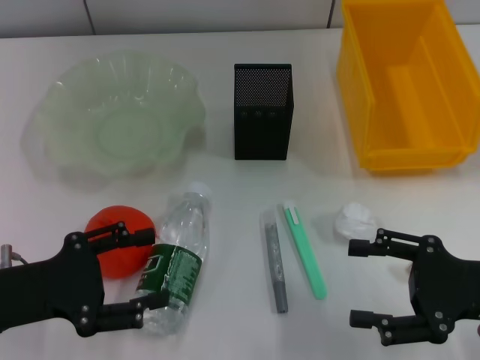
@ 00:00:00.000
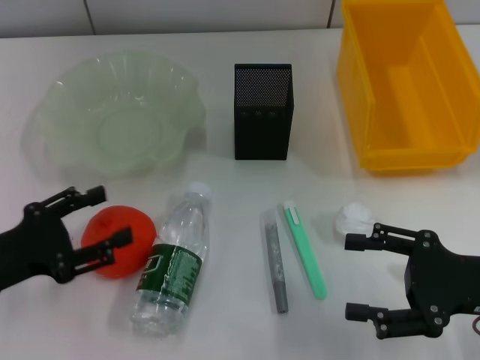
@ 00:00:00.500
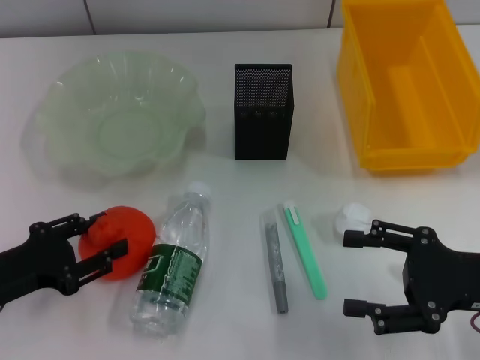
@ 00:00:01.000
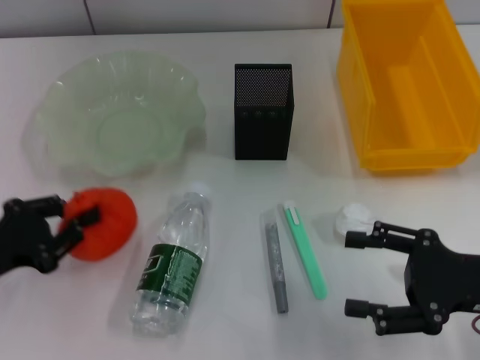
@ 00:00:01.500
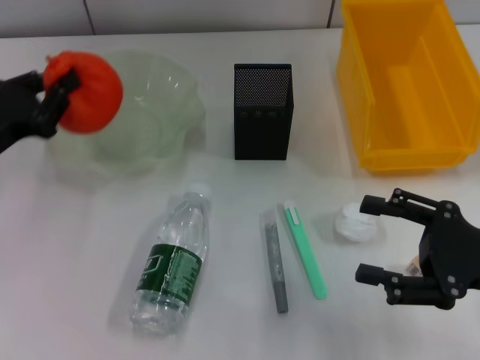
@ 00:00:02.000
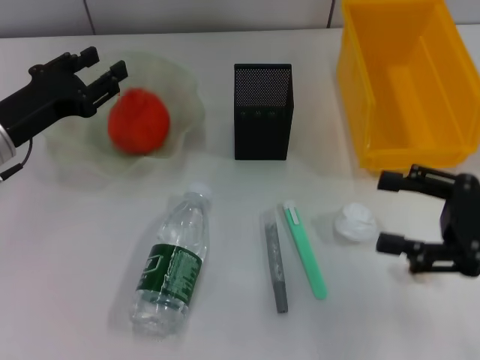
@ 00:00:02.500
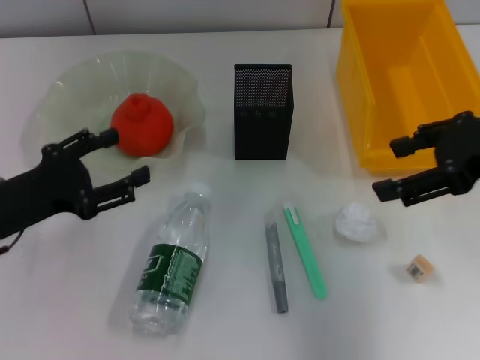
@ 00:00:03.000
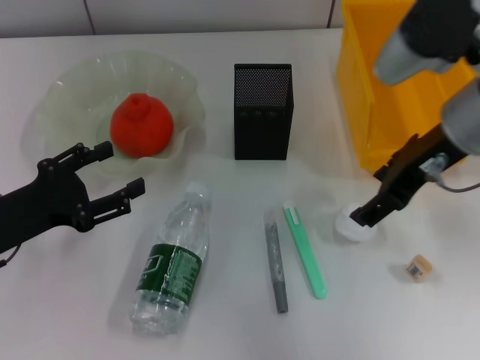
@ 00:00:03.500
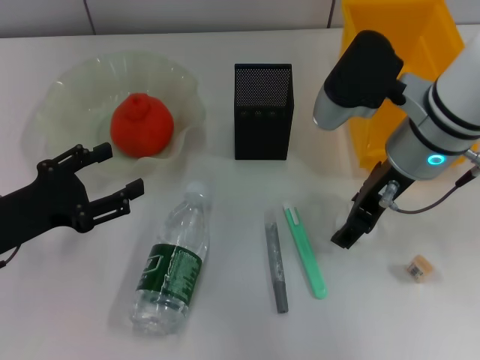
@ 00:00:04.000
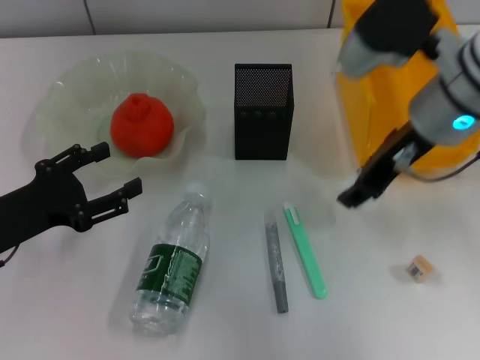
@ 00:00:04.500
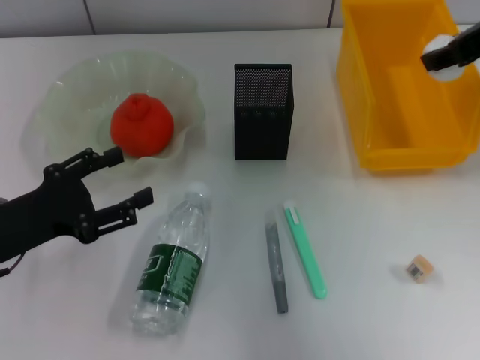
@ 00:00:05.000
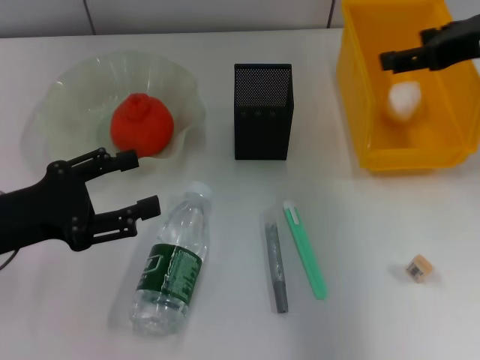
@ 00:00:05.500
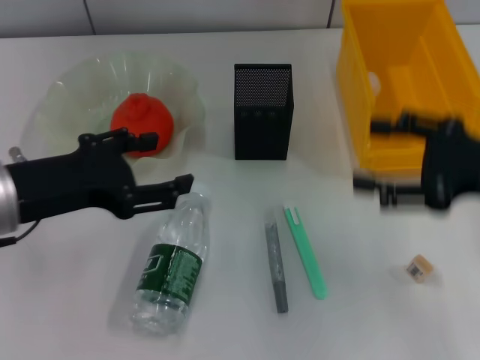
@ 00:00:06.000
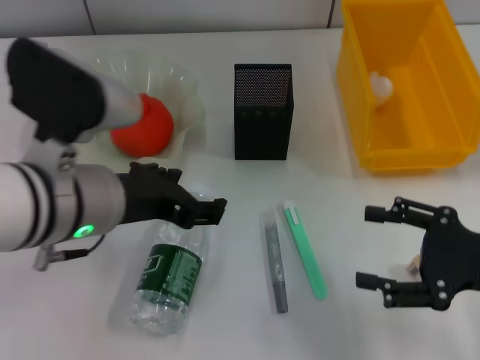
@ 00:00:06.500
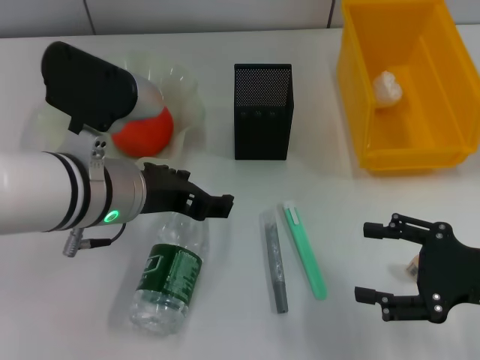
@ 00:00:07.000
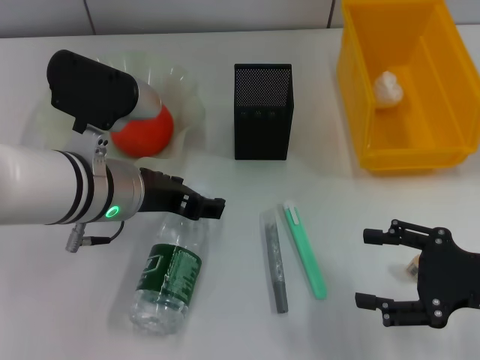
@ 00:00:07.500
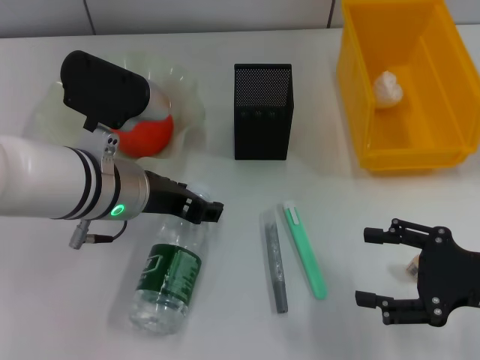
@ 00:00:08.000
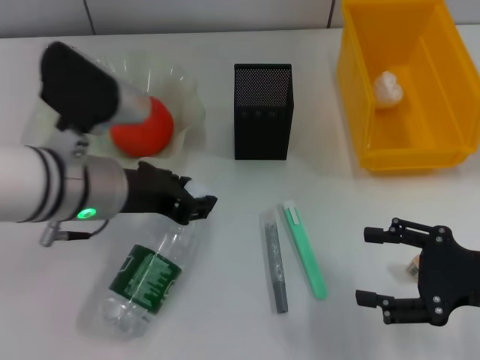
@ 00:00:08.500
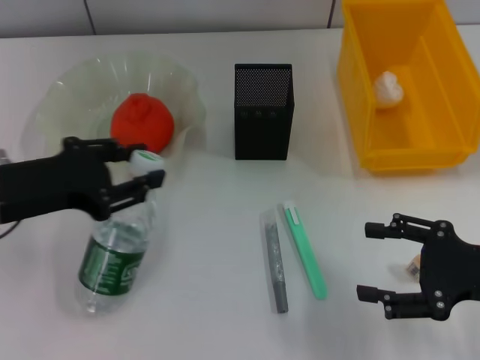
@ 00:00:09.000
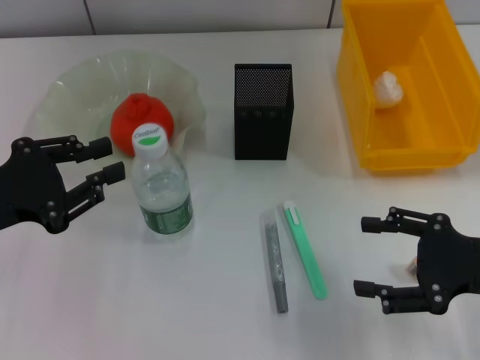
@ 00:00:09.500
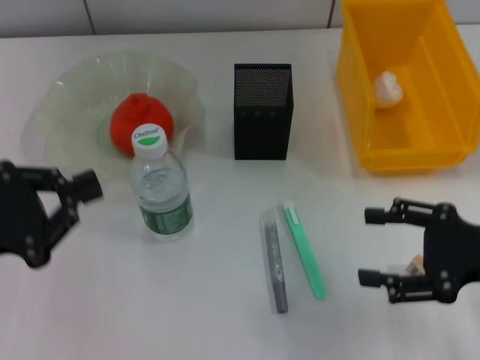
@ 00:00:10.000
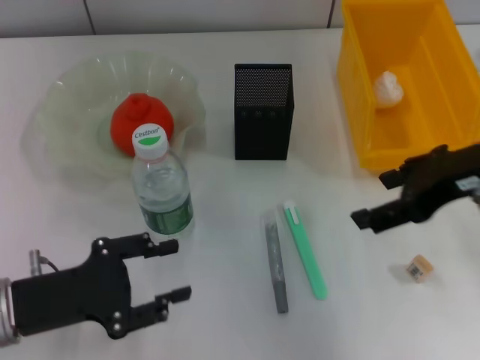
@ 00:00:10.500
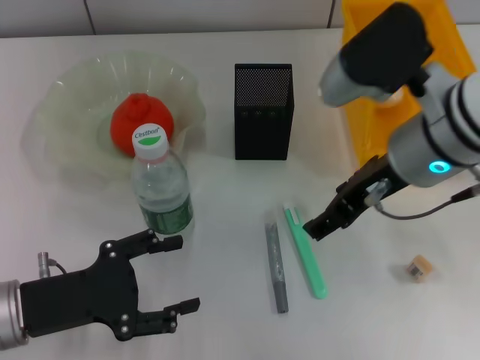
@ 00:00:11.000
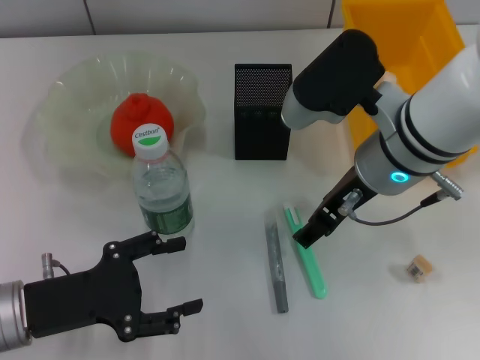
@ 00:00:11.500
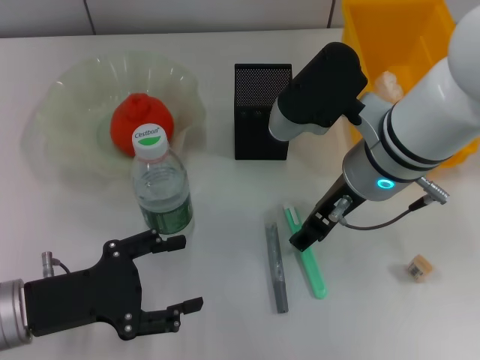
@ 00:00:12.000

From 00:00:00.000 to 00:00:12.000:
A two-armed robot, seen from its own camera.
Step, from 00:00:00.000 to 00:00:01.000: Grab the orange with the left hand.
Step, from 00:00:01.500 to 00:00:02.500: Place the orange into the fruit bowl with the left hand.
Step, from 00:00:03.000 to 00:00:04.000: Grab the paper ball with the right hand.
Step, from 00:00:04.500 to 00:00:05.500: Place the paper ball into the trash can with the right hand.
Step, from 00:00:06.000 to 00:00:08.000: Grab the water bottle with the left hand.
Step, from 00:00:08.500 to 00:00:09.500: Place the water bottle on the table with the left hand.
From 00:00:00.000 to 00:00:02.000: The left gripper is displaced forward by roughly 10 cm, and closes up.
From 00:00:02.000 to 00:00:04.000: The right gripper shifts approximately 20 cm to the left, forward and upward. Meanwhile the left gripper goes approximately 5 cm backward, and opens.
From 00:00:04.000 to 00:00:06.000: The right gripper goes roughly 15 cm to the right and backward, and closes, then opens again. Meanwhile the left gripper goes roughly 10 cm upward and to the right.
From 00:00:06.000 to 00:00:08.000: The right gripper is displaced downward and backward by approximately 10 cm. The left gripper shifts approximately 10 cm to the right and forward.
From 00:00:08.000 to 00:00:10.000: The left gripper goes roughly 20 cm to the left and backward, and closes its fingers.
From 00:00:10.000 to 00:00:12.000: The right gripper travels to the left and forward by about 20 cm; the left gripper is displaced downward and to the right by approximately 10 cm, and opens up.

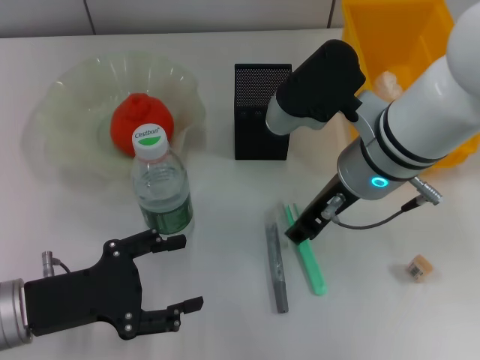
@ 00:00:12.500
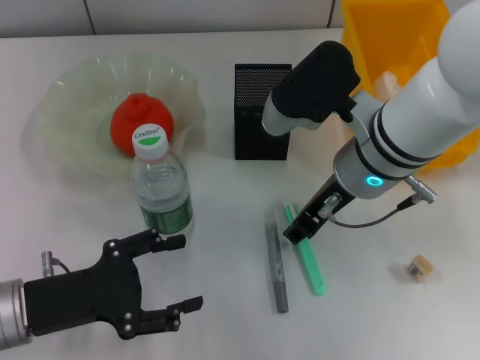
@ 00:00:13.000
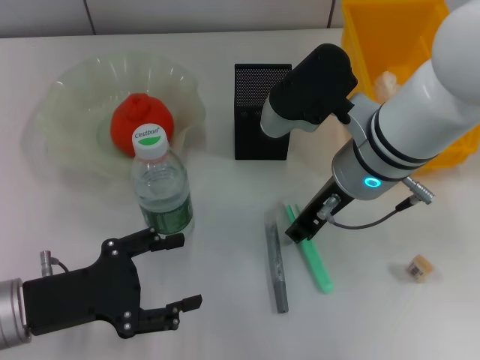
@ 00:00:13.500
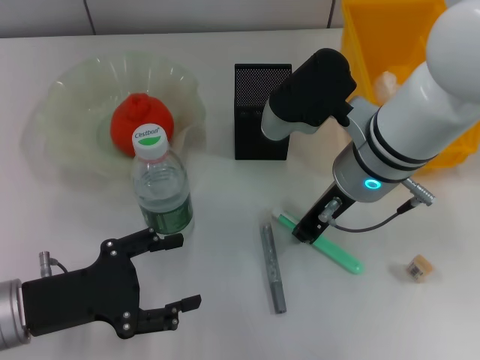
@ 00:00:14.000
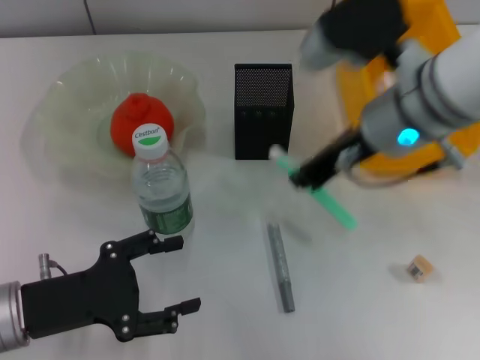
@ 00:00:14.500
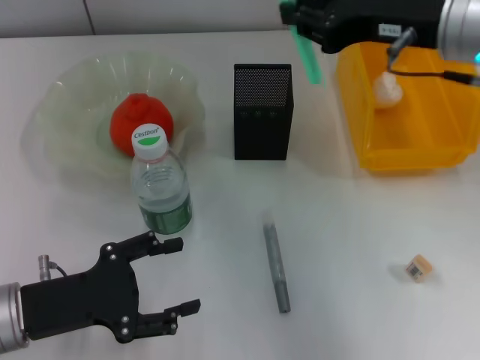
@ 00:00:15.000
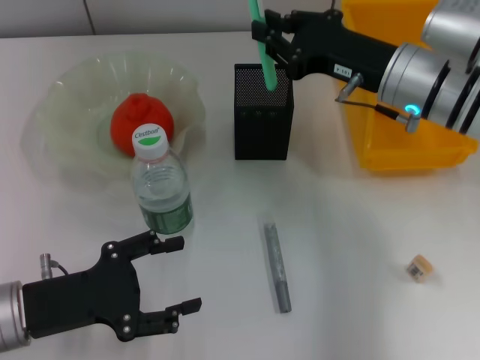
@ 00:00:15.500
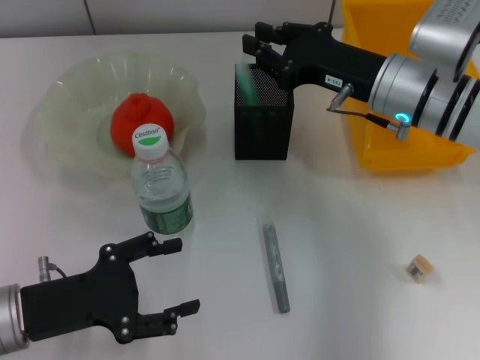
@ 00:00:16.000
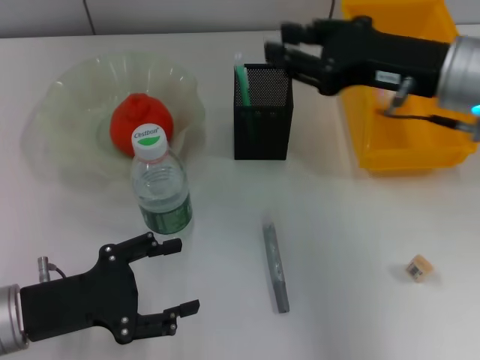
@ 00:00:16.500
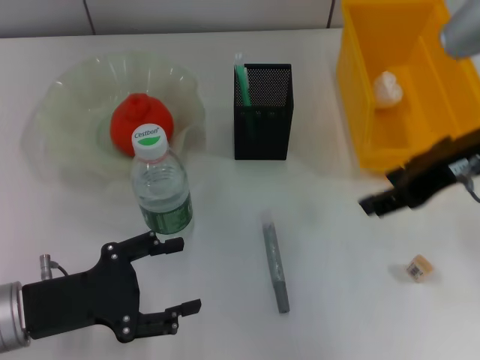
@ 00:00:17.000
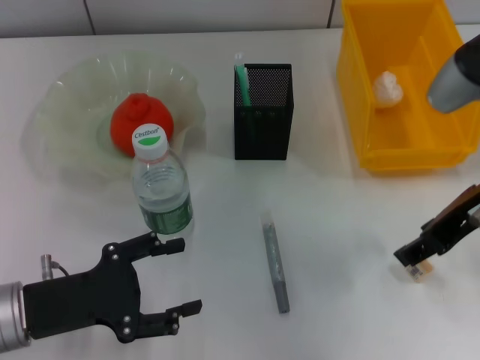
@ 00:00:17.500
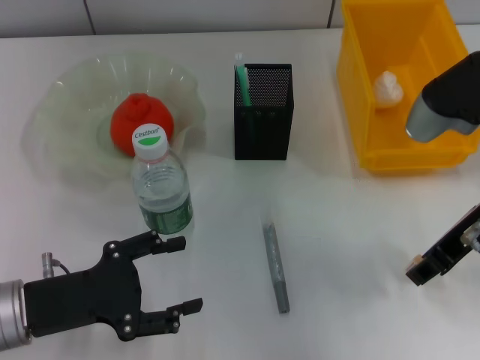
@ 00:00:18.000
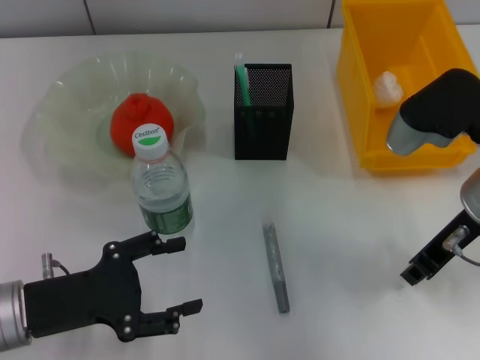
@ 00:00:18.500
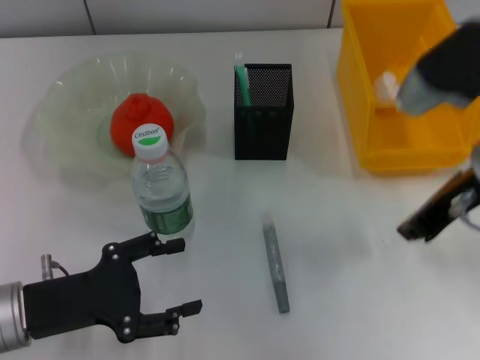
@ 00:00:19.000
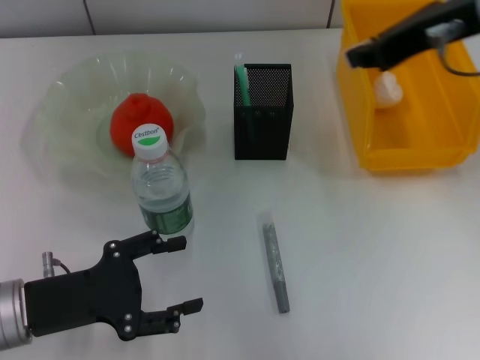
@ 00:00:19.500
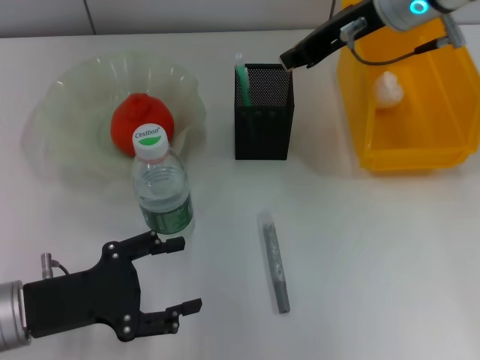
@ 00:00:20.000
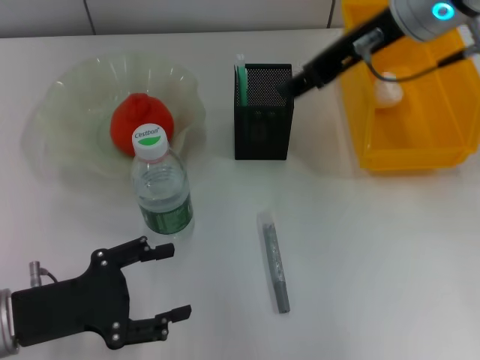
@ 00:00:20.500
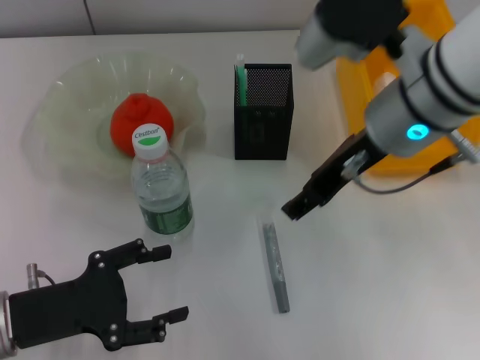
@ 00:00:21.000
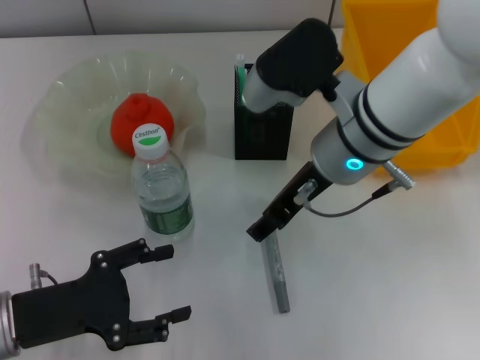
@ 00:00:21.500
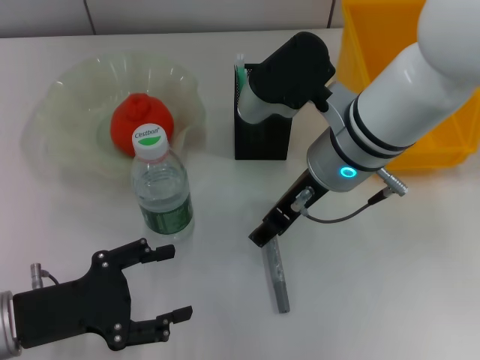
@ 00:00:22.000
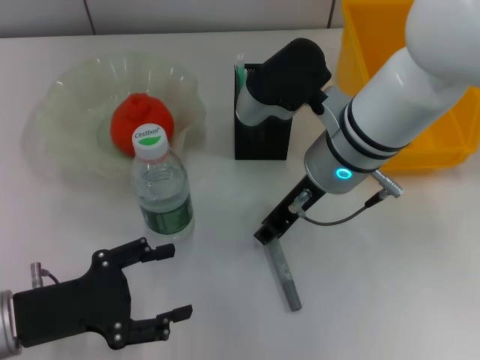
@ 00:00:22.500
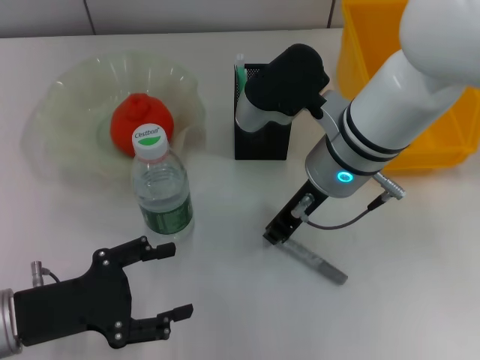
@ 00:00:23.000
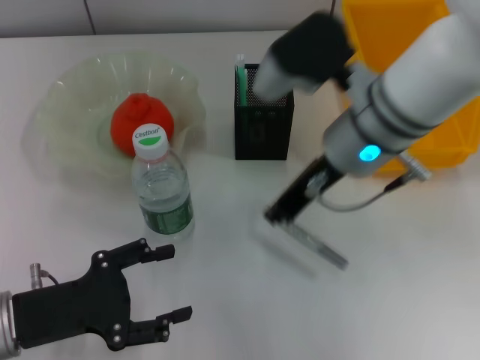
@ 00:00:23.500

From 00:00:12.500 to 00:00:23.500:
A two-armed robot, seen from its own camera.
Step, from 00:00:14.000 to 00:00:16.000: Place the blue utility knife into the pen holder with the right hand.
Step, from 00:00:16.500 to 00:00:18.500: Grab the eraser with the right hand.
Step, from 00:00:19.000 to 00:00:20.500: Put the eraser into the pen holder with the right hand.
Step, from 00:00:21.000 to 00:00:22.500: Grab the gray glue with the right hand.
From 00:00:12.500 to 00:00:14.500: The right gripper heads upward, covering approximately 5 cm, and closes up.
From 00:00:14.500 to 00:00:16.000: The right gripper heads downward, covering some 10 cm.
From 00:00:16.000 to 00:00:18.000: The right gripper shifts about 10 cm backward and upward, and opens its fingers.
From 00:00:18.000 to 00:00:20.000: The right gripper goes about 15 cm forward, to the left and upward, and closes up.
From 00:00:20.000 to 00:00:21.500: The right gripper travels backward, downward and to the left by some 15 cm, and opens up.
From 00:00:21.500 to 00:00:23.500: The right gripper closes its fingers.

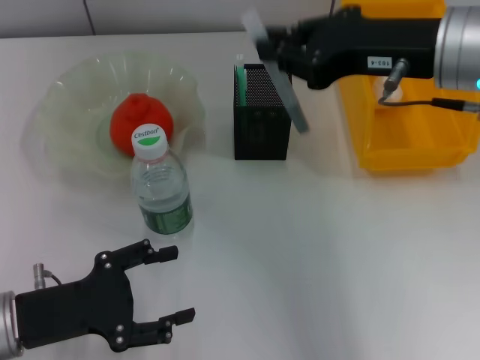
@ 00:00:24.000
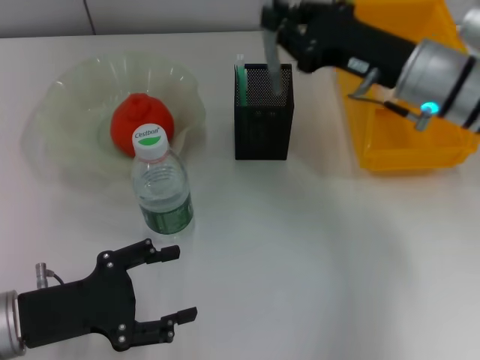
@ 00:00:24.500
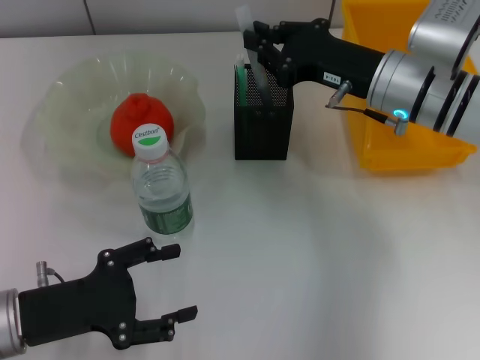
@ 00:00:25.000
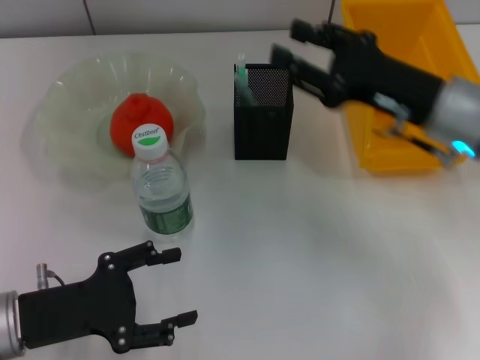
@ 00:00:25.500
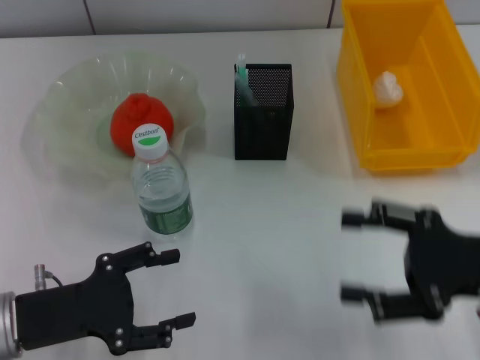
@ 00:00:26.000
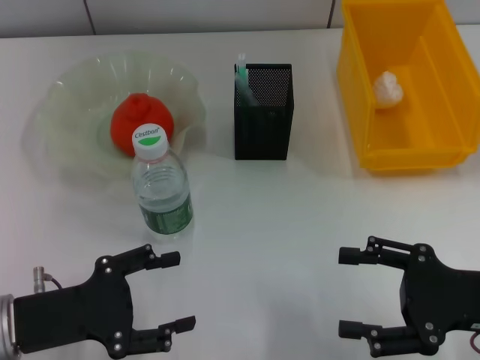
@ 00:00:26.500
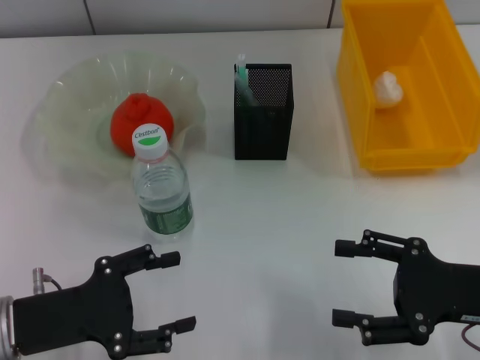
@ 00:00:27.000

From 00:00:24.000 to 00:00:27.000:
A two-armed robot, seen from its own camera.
Step, from 00:00:24.000 to 00:00:25.500: Place the gray glue into the pen holder with the right hand.
From 00:00:24.000 to 00:00:25.500: The right gripper heads downward, covering about 10 cm.
From 00:00:25.500 to 00:00:27.000: The right gripper moves backward, to the right and downward, roughly 15 cm, and opens.
